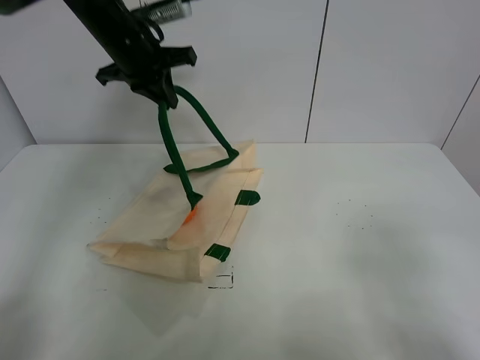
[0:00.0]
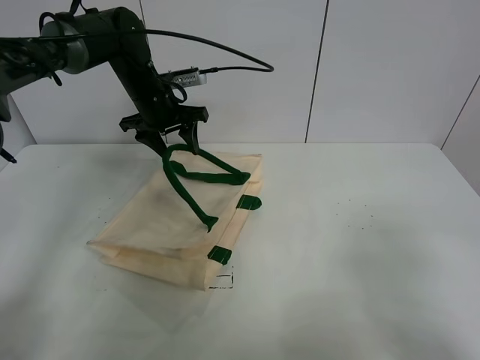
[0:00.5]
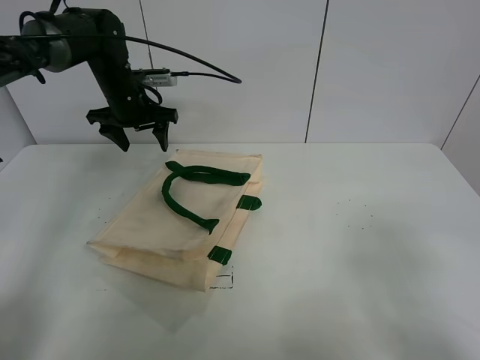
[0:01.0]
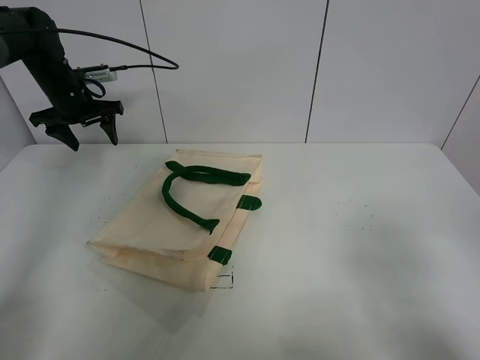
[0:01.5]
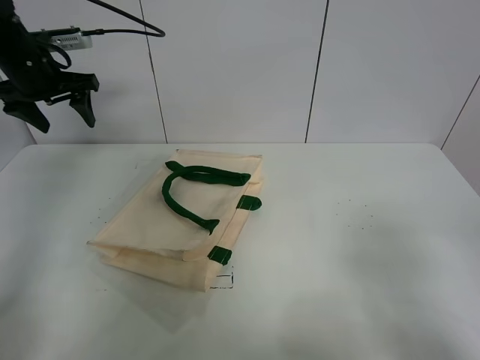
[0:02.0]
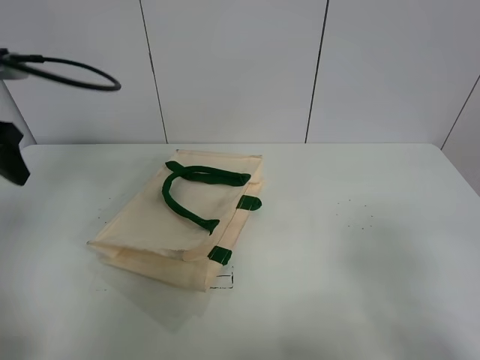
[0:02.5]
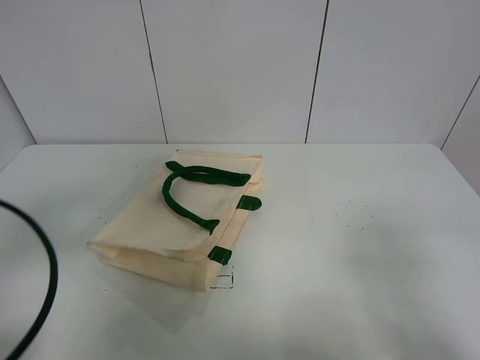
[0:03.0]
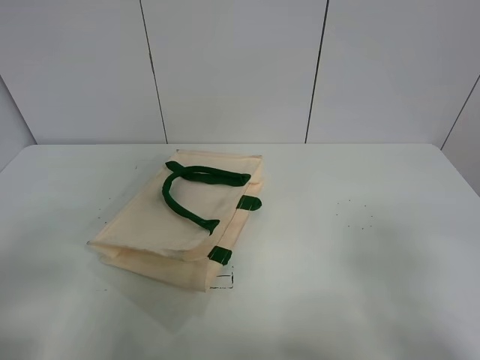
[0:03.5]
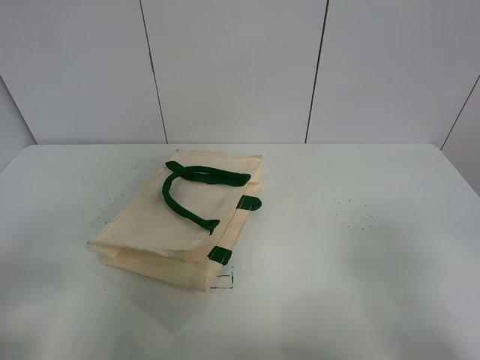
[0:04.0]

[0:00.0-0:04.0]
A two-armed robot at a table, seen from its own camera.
Task of the whole recording: open the white linen bag and put the orange in the bag.
0:00.0 to 0:02.0: The left gripper heads to the left, covering approximately 15 cm, and opens.
0:02.0 to 0:04.0: The left gripper goes some 40 cm backward.
